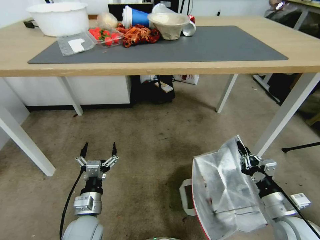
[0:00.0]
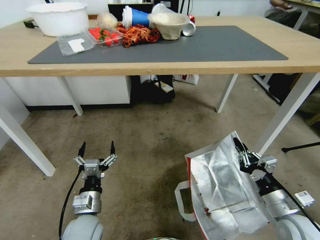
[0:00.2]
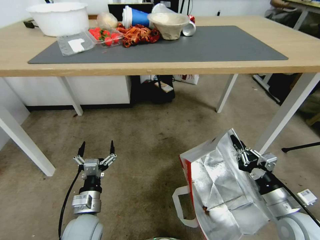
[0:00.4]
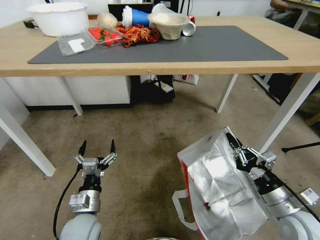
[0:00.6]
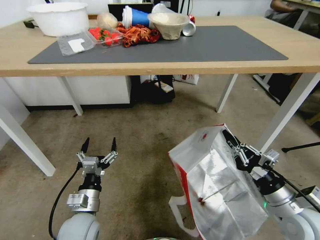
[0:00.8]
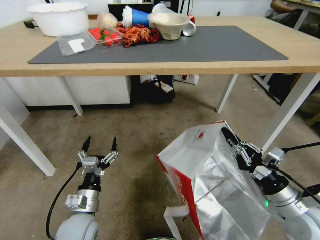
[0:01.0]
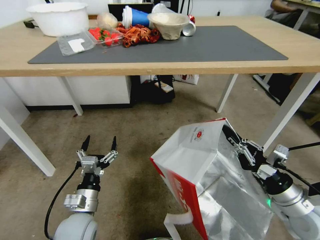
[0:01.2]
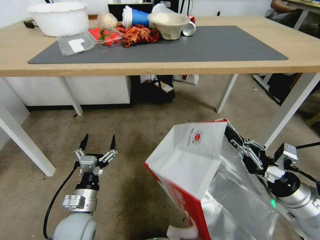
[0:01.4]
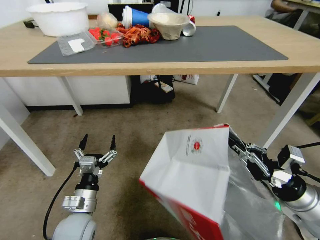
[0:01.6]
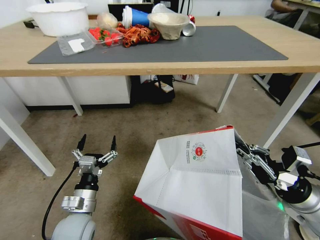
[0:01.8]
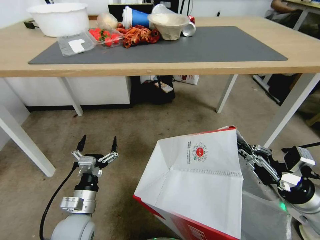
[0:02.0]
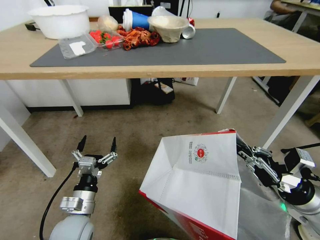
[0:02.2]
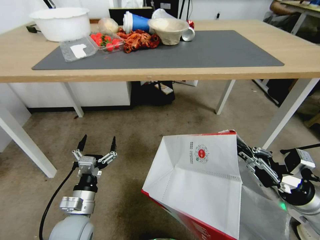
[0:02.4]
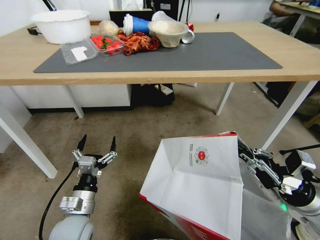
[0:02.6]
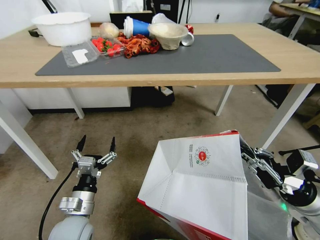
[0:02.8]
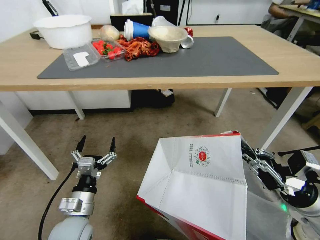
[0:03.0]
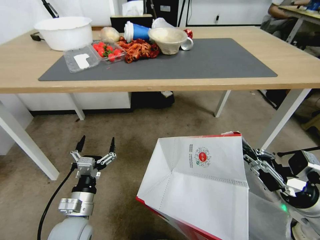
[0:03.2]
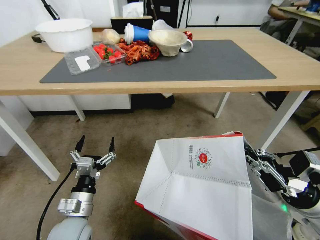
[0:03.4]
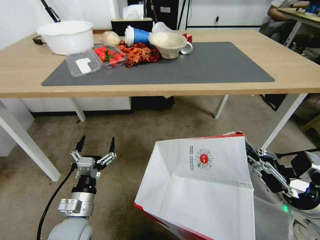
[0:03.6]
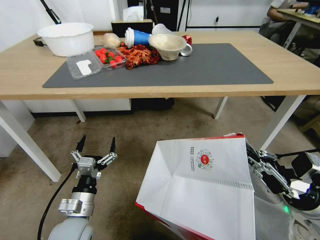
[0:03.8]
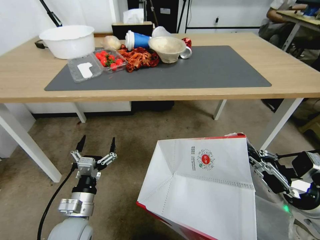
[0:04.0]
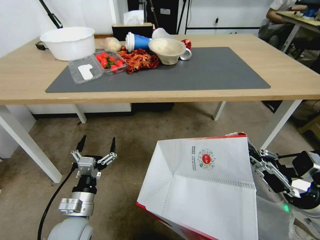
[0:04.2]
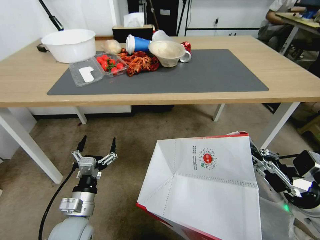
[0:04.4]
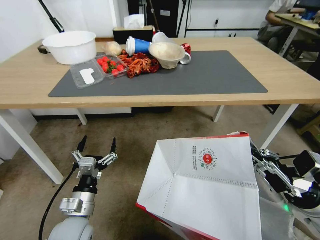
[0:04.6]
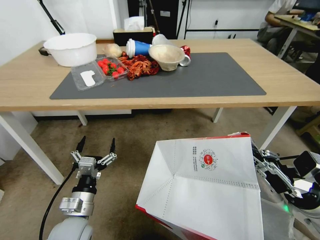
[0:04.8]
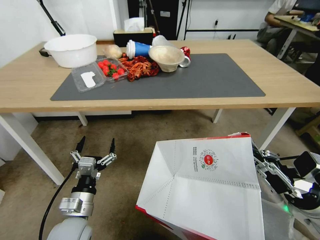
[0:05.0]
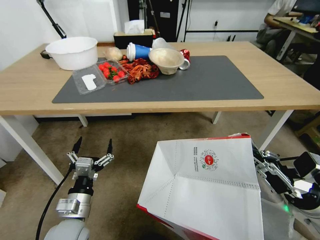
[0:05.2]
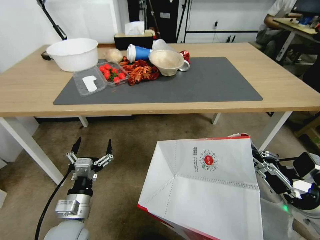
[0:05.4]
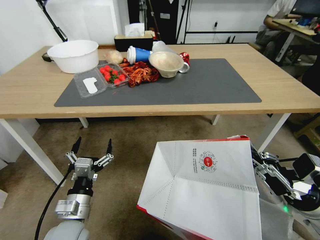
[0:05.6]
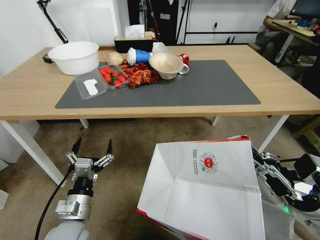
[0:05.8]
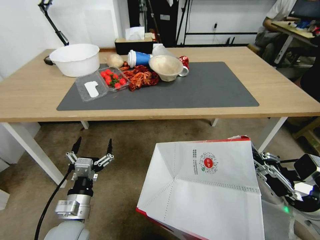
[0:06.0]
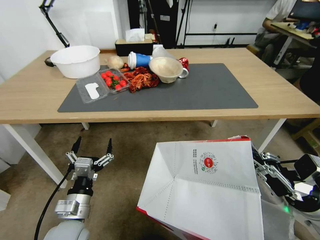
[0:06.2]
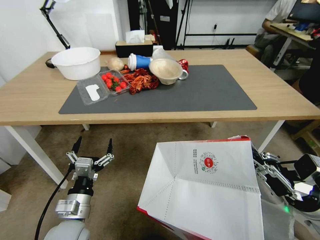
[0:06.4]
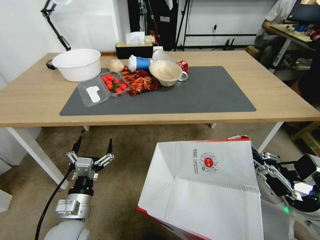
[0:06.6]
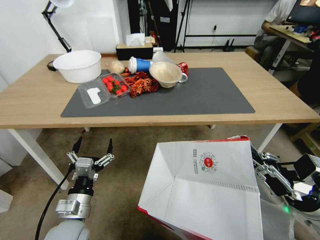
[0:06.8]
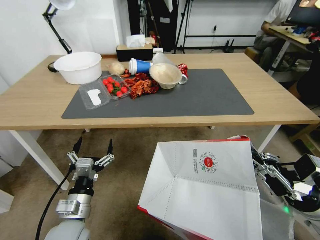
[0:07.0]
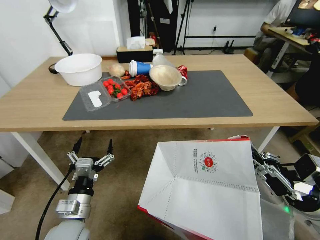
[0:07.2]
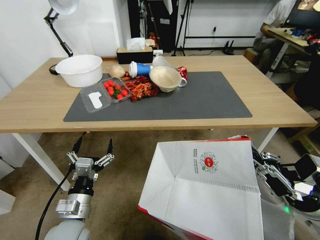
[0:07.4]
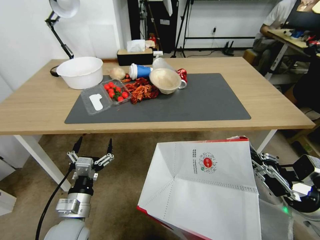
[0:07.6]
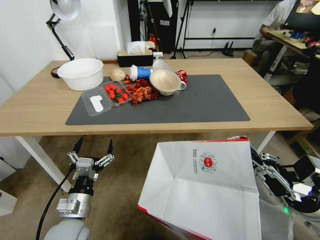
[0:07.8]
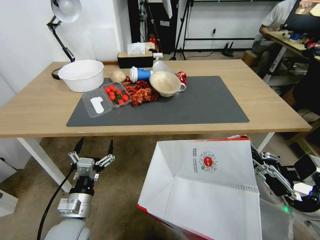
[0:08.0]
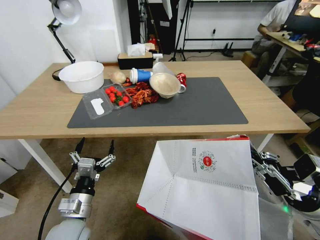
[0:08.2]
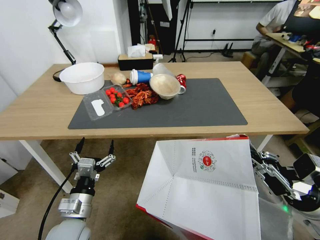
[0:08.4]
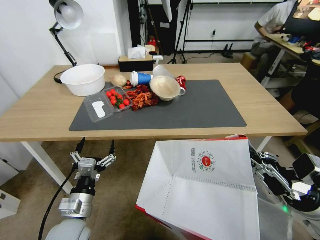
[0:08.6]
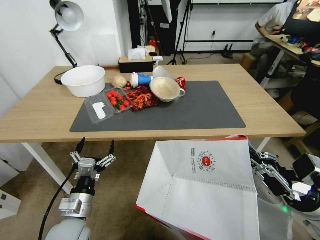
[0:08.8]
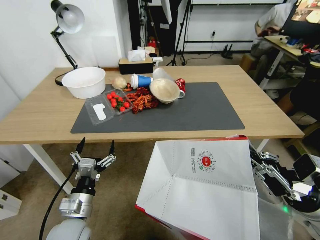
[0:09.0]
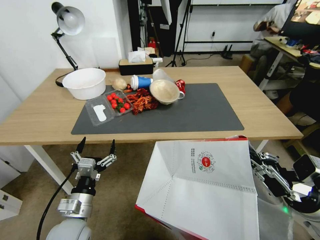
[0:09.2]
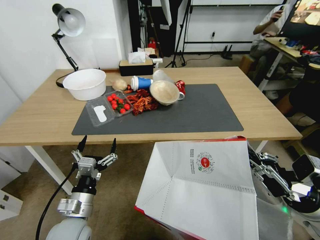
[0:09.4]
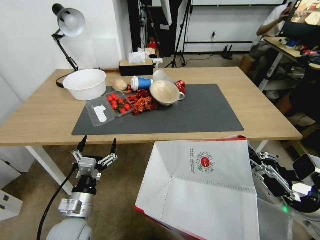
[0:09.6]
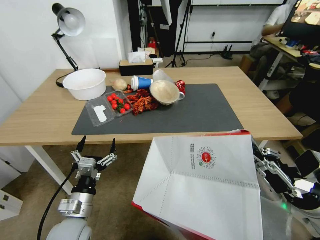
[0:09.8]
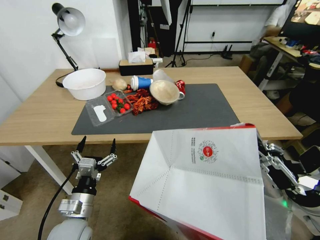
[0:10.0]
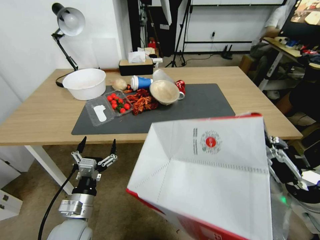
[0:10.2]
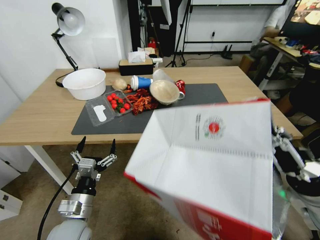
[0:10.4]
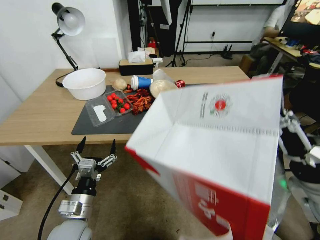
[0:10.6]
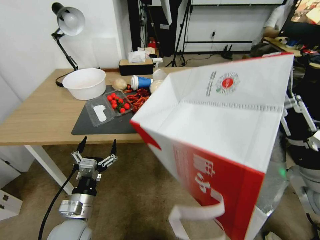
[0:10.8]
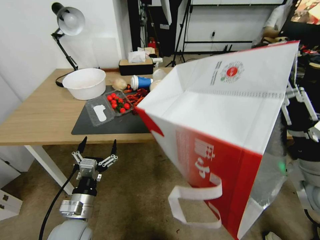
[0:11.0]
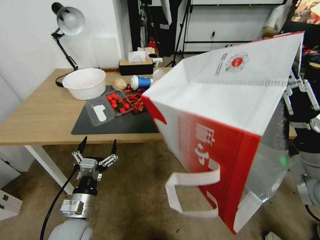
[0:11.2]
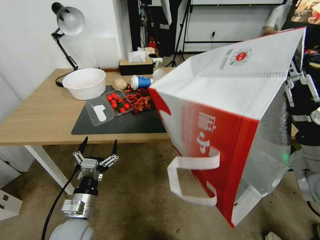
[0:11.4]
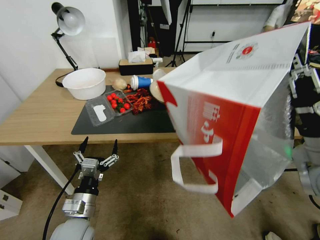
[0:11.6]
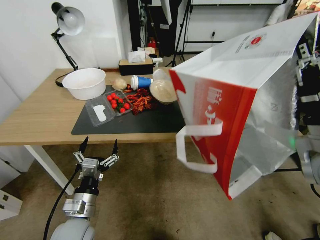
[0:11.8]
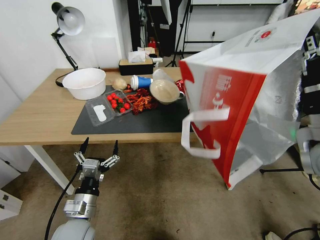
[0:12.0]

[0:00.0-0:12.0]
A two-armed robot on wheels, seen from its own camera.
Task of the whole recording: Pick up the food delivery bag from the floor and place it on the table.
0:00.0 to 0:01.6: The right gripper shifts approximately 10 cm upward.
0:09.0 to 0:10.4: The right gripper shifts by some 5 cm.
0:10.4 to 0:12.0: The right gripper is displaced upward and forward by about 10 cm.

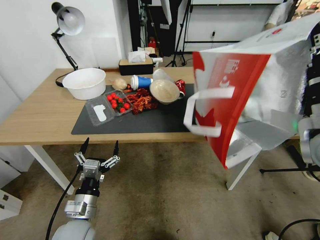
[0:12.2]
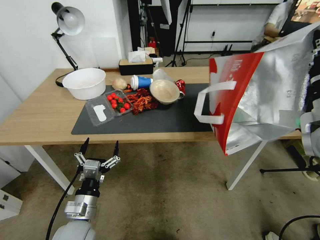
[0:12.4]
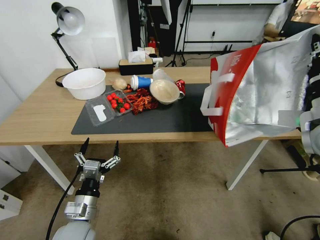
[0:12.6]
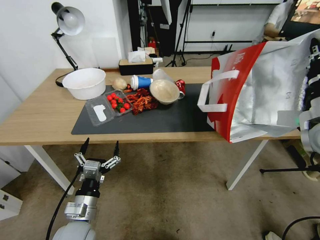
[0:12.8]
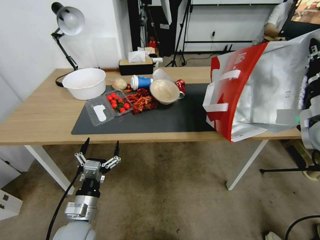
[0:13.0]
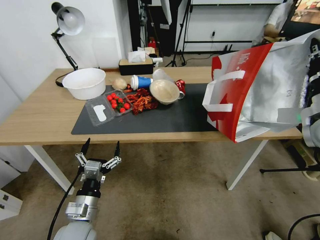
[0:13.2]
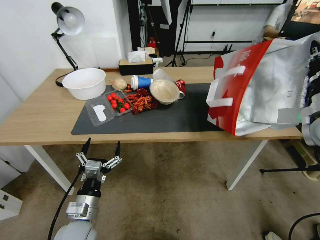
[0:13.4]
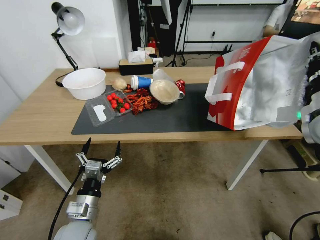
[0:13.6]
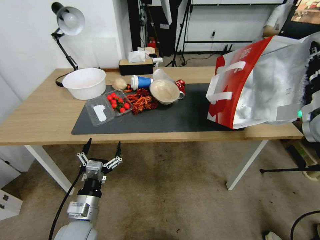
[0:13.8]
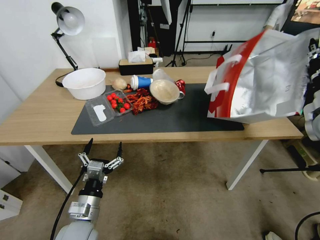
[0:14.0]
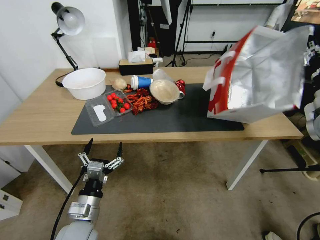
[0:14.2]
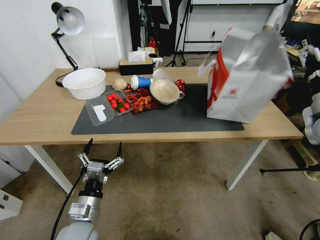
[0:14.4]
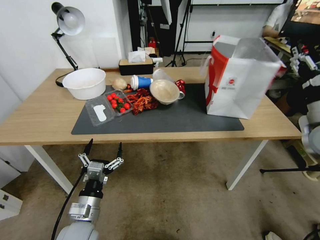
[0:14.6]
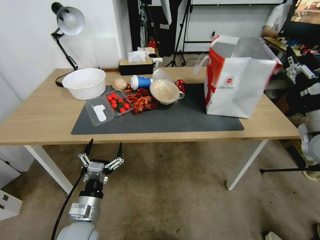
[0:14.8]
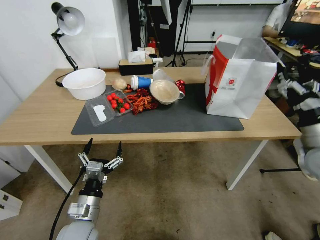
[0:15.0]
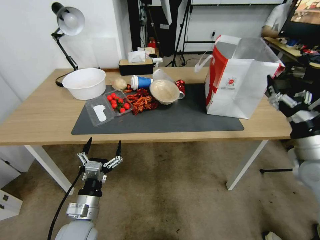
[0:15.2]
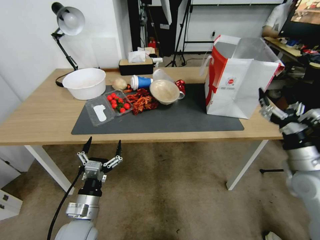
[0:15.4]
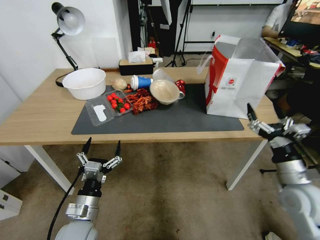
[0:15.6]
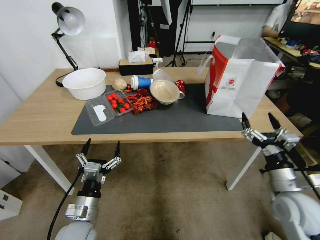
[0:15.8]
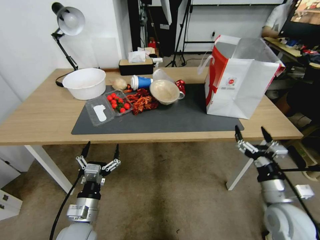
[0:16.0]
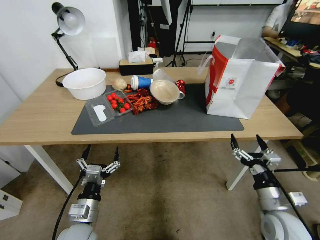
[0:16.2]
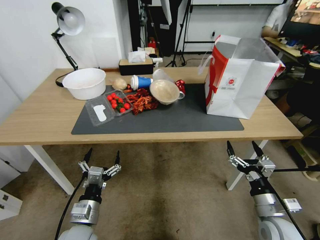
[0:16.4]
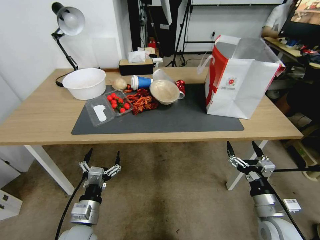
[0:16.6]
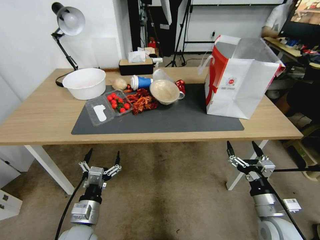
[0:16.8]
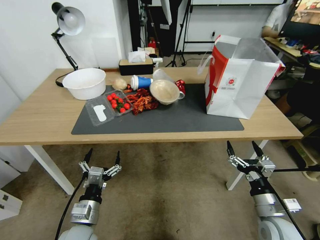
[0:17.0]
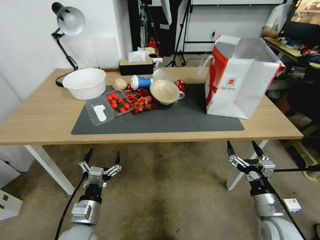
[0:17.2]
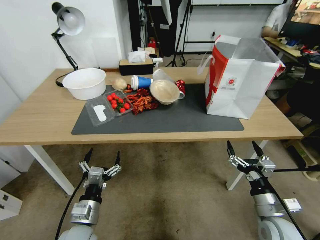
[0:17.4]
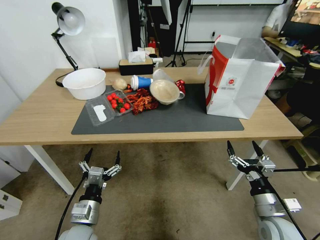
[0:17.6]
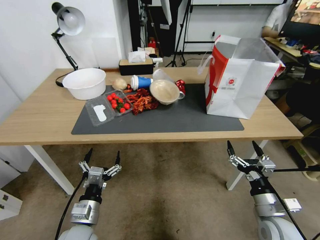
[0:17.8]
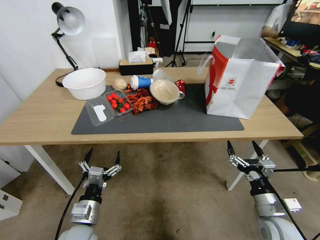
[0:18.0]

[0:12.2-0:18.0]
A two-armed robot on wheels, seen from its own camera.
Task of the whole recording: Pick up the food delivery bag from the floor and place it on the table.
0:12.2 to 0:13.6: The right gripper moves forward and to the right, some 10 cm.
0:13.6 to 0:15.0: The right gripper heads downward and backward, covering roughly 10 cm, and opens up.
0:15.0 to 0:16.6: The right gripper goes approximately 25 cm downward, backward and to the left.
0:16.6 to 0:18.0: The two grippers keep their place.

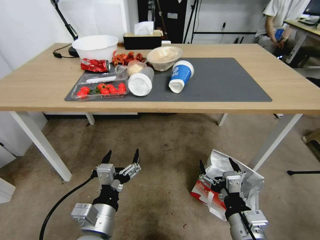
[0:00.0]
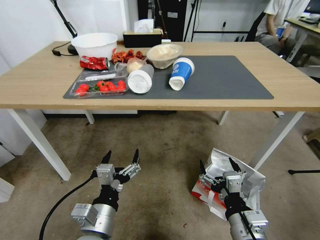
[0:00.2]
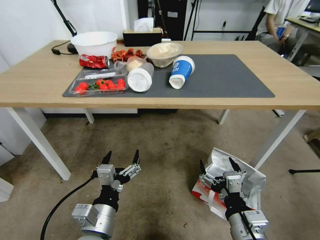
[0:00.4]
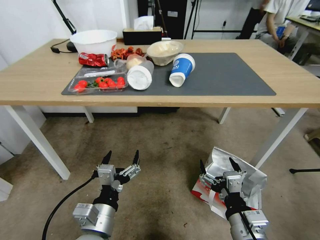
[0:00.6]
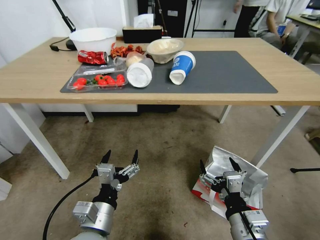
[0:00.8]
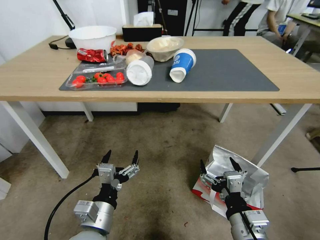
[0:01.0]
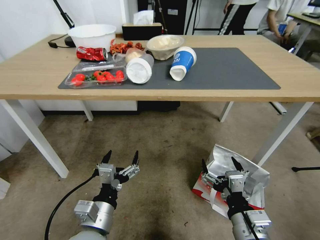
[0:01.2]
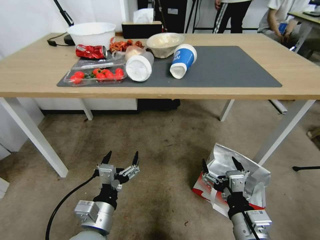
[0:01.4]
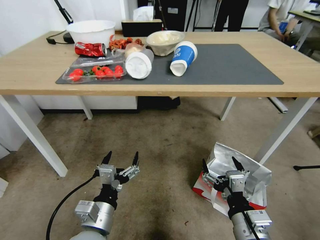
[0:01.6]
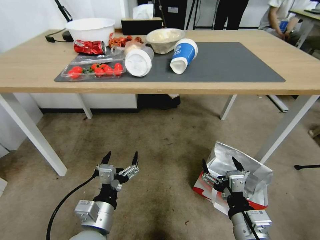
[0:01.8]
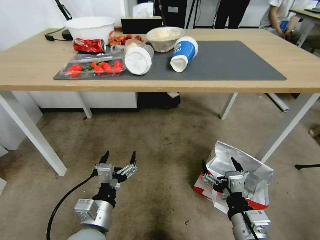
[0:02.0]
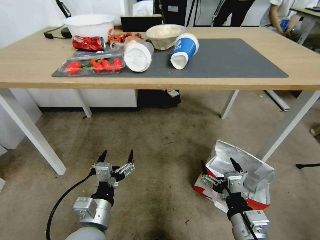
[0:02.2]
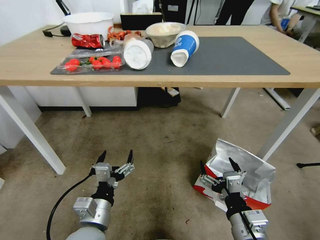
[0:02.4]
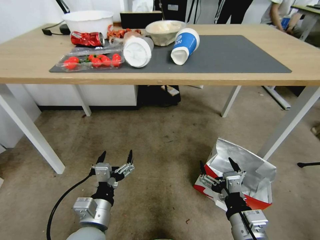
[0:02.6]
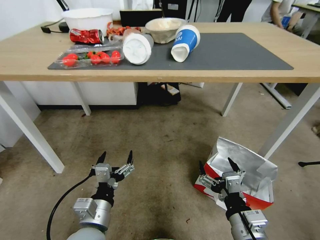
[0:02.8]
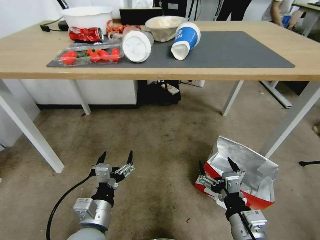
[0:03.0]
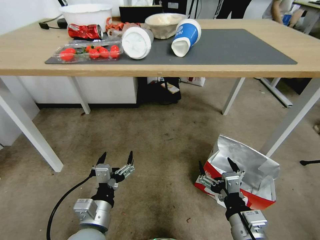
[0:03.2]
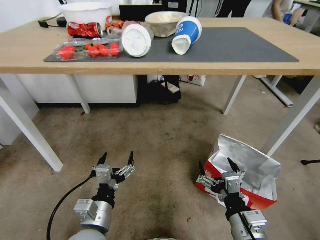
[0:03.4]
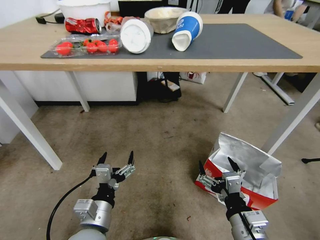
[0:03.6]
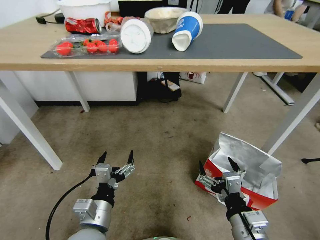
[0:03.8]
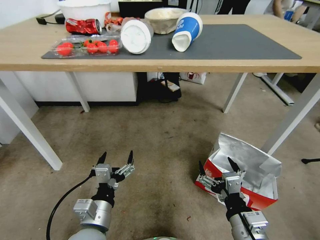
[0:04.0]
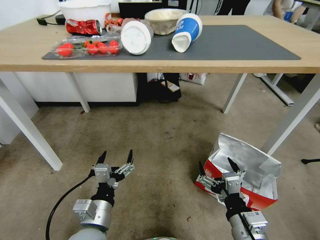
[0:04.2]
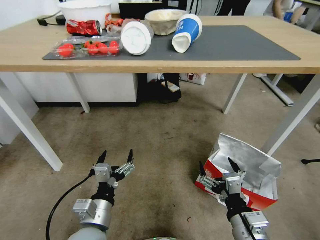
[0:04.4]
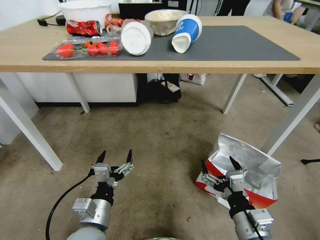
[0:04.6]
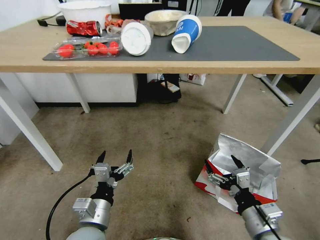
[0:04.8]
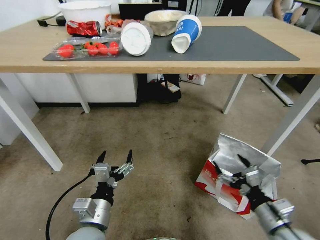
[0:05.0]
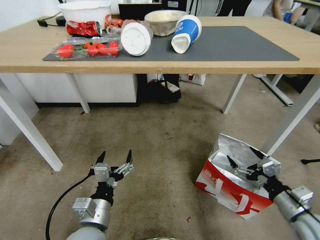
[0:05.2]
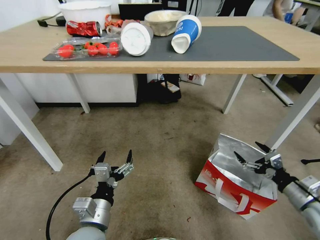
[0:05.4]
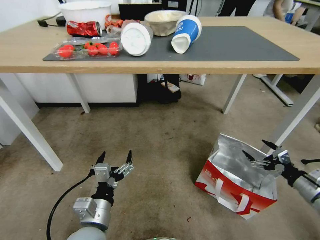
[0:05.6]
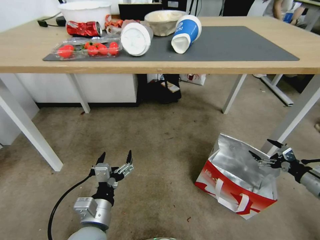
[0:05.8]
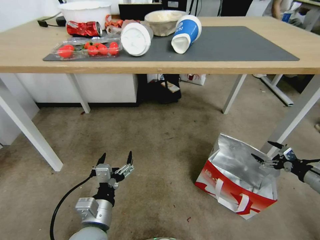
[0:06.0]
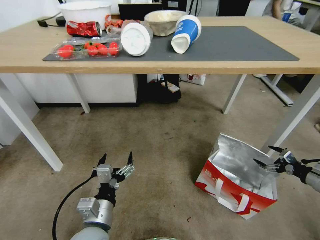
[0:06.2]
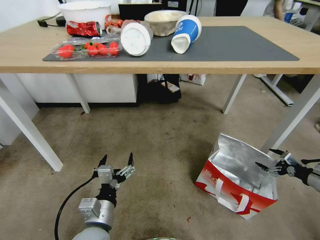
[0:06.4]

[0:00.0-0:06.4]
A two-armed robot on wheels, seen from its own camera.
Task of the whole recording: Pick up the food delivery bag from the floor and place it on the table.
0:04.8 to 0:06.4: The right gripper moves to the right and forward, about 40 cm.
